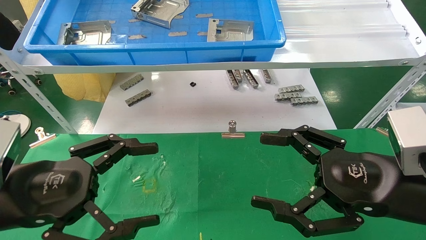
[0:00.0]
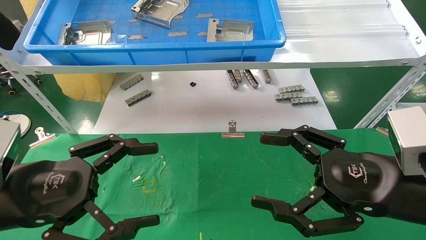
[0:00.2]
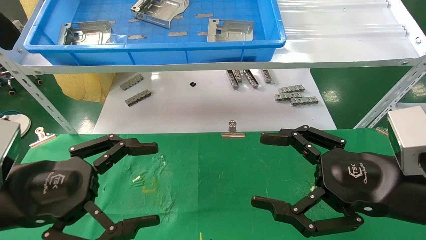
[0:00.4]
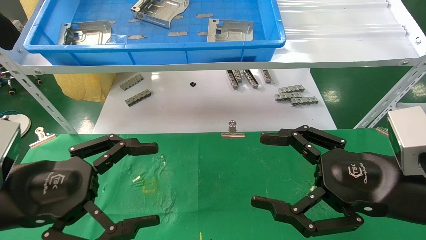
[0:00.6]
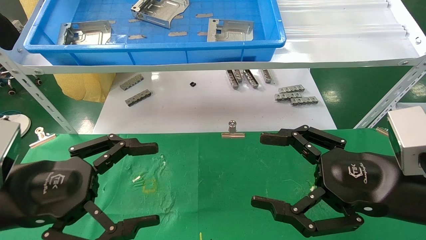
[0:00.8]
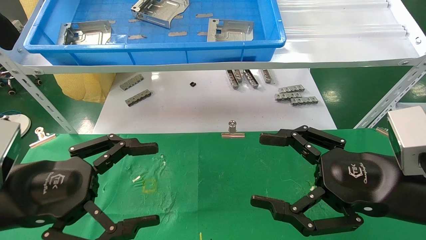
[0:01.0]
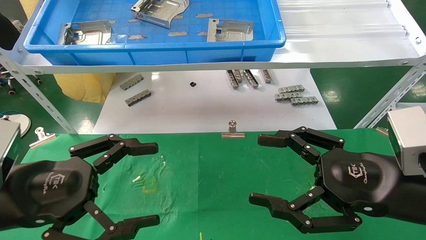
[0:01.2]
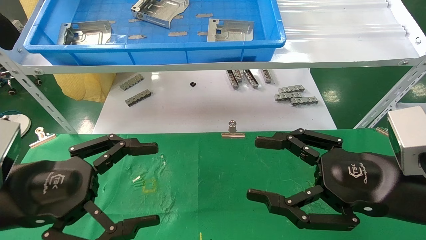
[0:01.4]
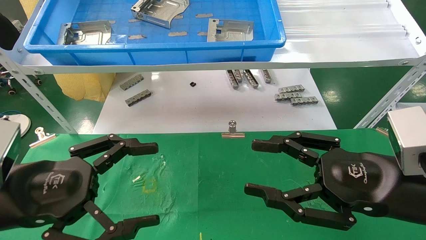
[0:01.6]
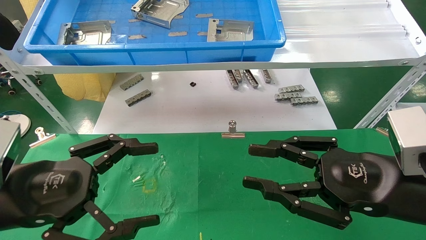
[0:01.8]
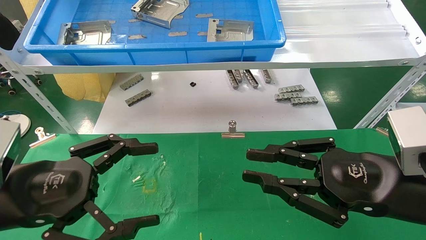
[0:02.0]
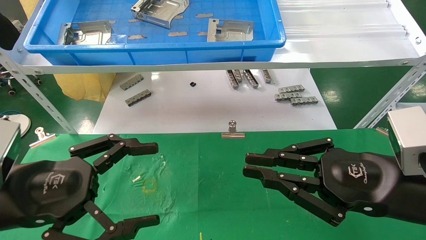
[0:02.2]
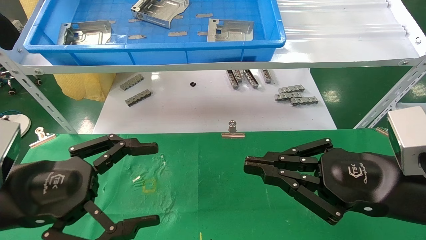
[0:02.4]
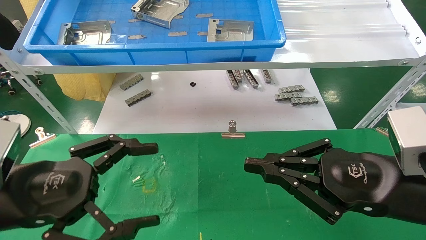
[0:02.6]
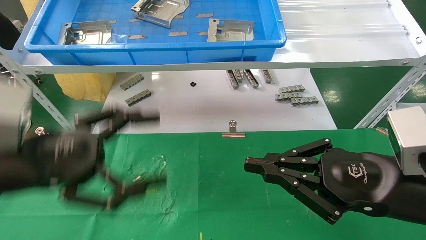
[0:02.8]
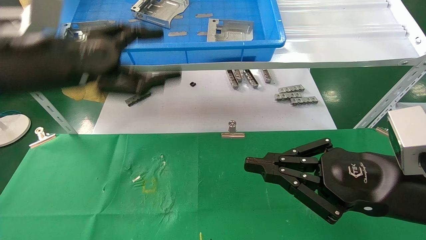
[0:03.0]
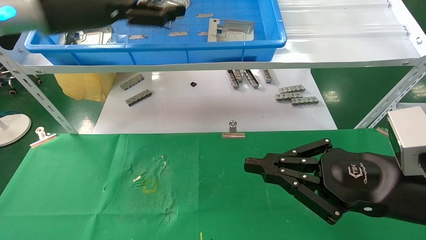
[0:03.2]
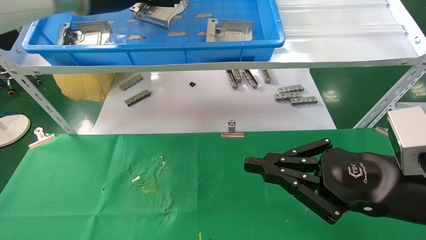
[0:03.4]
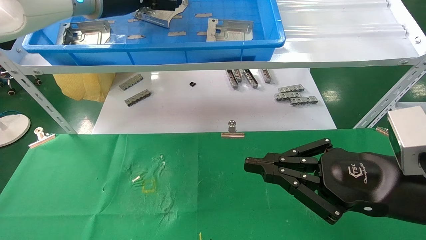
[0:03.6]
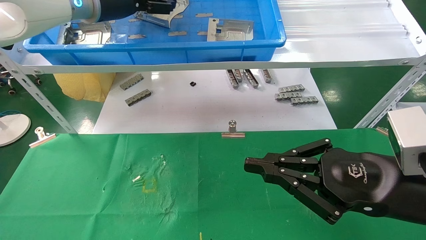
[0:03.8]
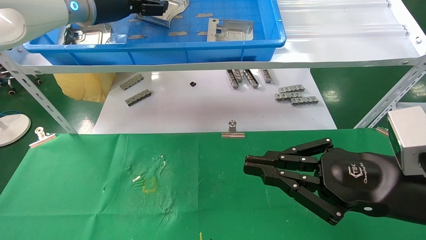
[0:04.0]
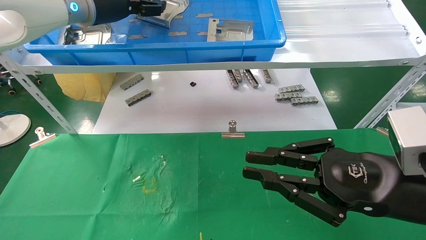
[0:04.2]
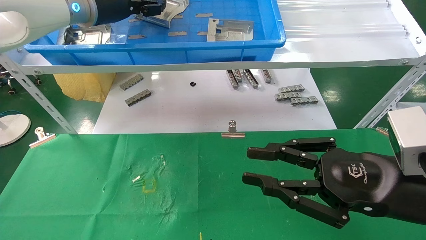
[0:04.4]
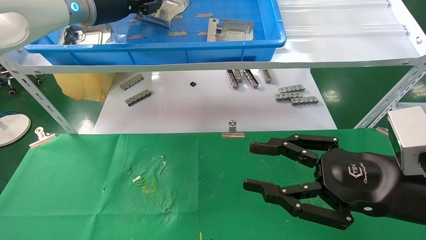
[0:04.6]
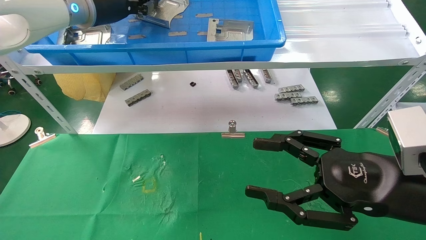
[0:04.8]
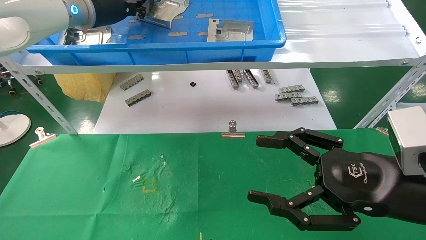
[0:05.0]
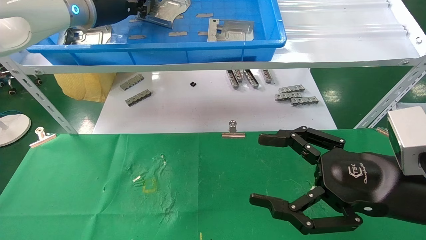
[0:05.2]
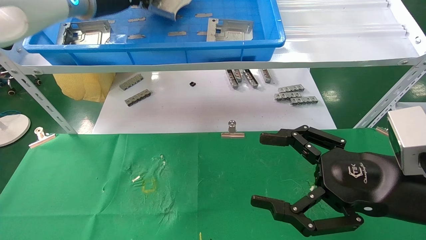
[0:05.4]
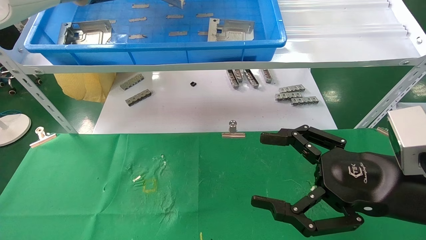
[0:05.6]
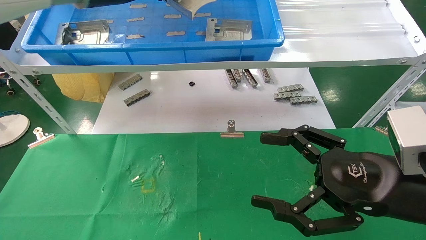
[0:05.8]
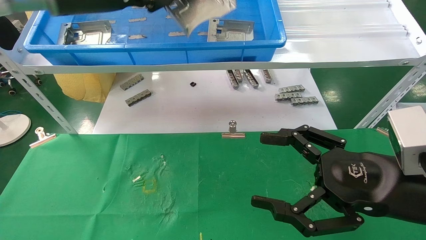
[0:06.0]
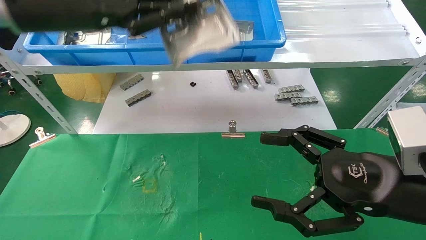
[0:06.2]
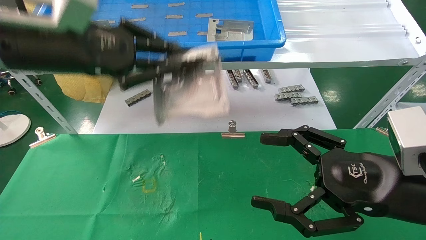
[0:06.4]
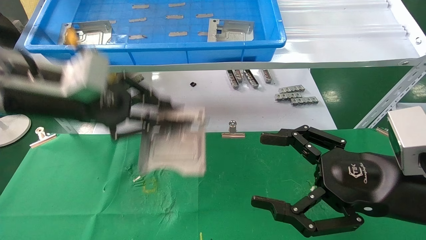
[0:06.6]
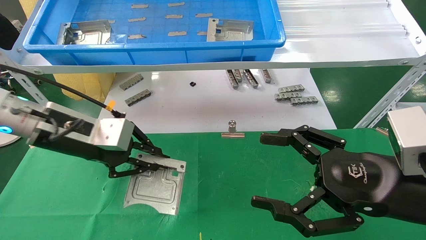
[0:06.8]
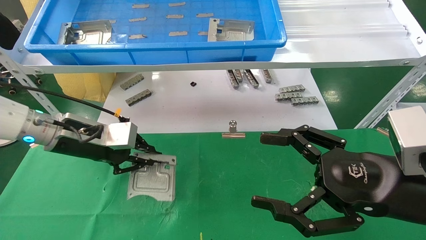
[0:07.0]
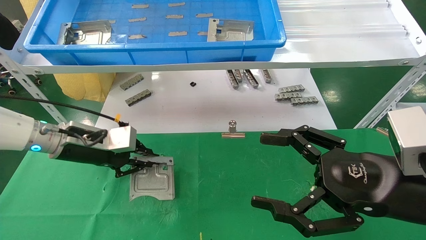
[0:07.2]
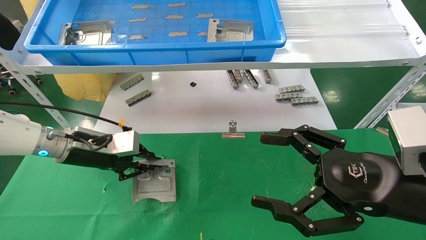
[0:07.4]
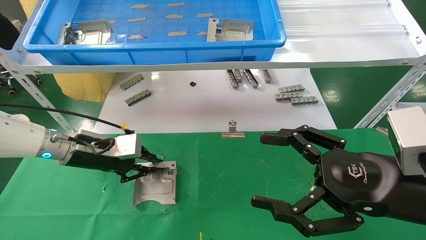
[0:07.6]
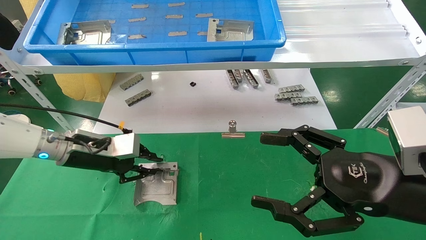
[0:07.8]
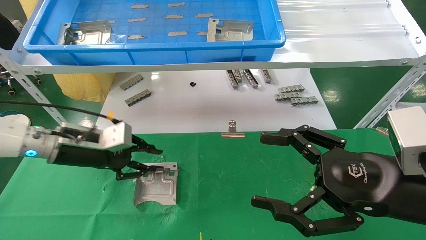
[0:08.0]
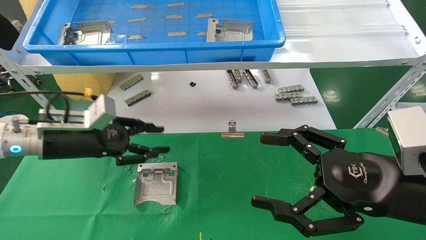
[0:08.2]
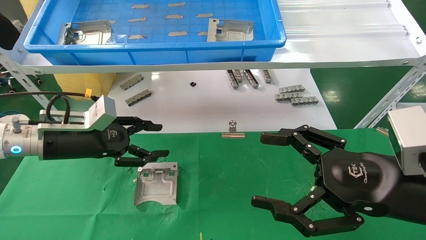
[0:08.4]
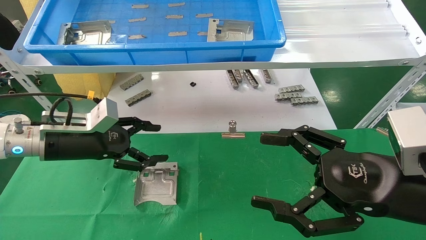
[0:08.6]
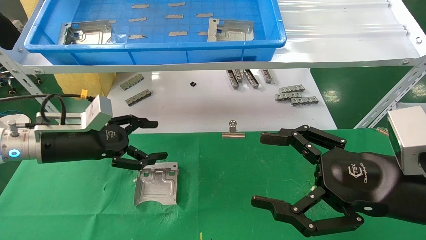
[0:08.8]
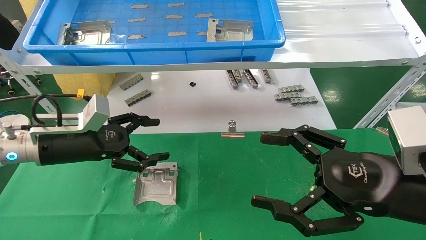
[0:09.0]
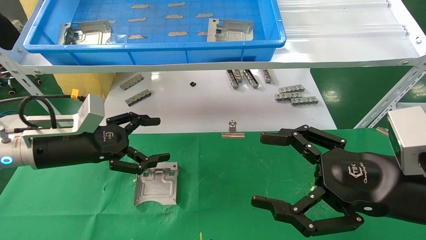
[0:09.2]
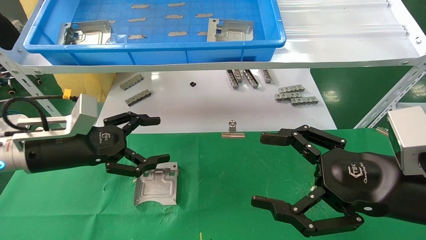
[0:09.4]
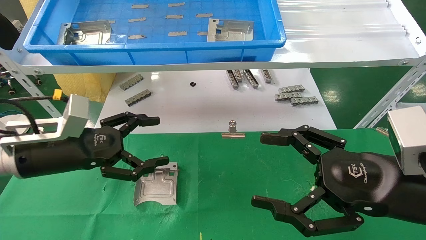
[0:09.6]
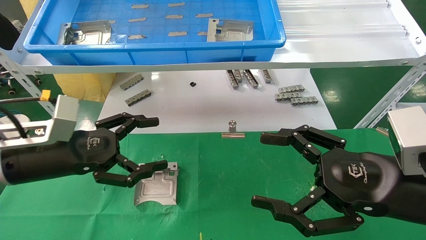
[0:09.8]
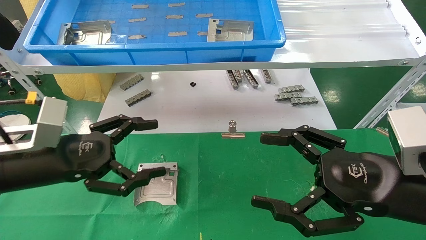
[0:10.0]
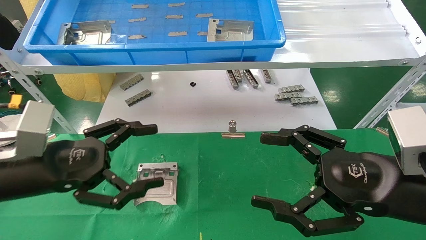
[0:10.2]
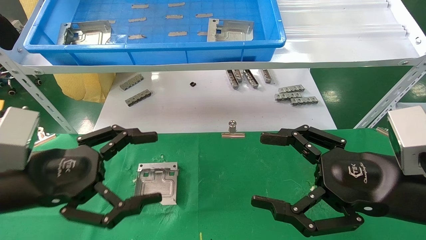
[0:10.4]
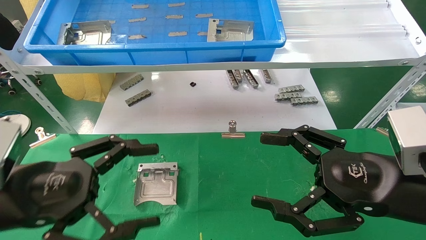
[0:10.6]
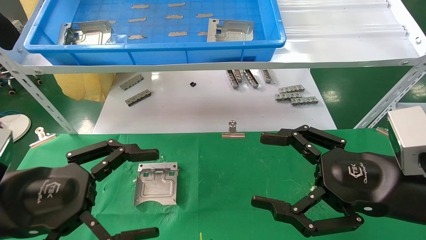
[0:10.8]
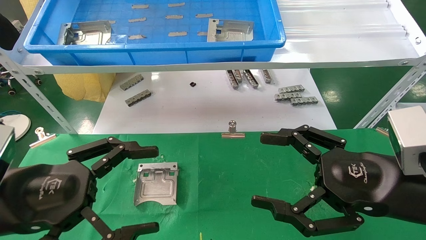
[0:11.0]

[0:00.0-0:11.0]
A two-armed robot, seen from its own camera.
Task of the whole recording: use the mechanical arm to pick up the parts and place them on the table.
Step, 0:03.0 to 0:04.8: Pick up the hard drive bracket from the feeding area.
Step, 0:05.0 to 0:08.0: Place the hard drive bracket into the box.
0:00.0 to 0:01.6: Neither gripper changes place.
0:01.6 to 0:03.2: The left gripper shifts some 30 cm upward and forward; the right gripper closes up.
0:03.2 to 0:04.8: The right gripper opens, while the left gripper travels forward by some 10 cm, and closes.
0:04.8 to 0:06.2: The left gripper shifts roughly 15 cm backward. The right gripper opens its fingers.
0:06.2 to 0:07.8: The left gripper travels downward by approximately 25 cm.
0:07.8 to 0:09.4: The left gripper travels backward by approximately 5 cm, and opens its fingers.
0:09.4 to 0:11.0: The left gripper travels backward by roughly 15 cm.
